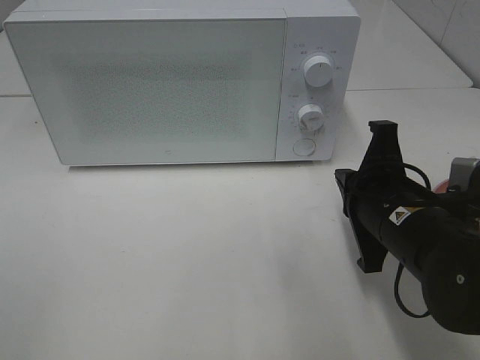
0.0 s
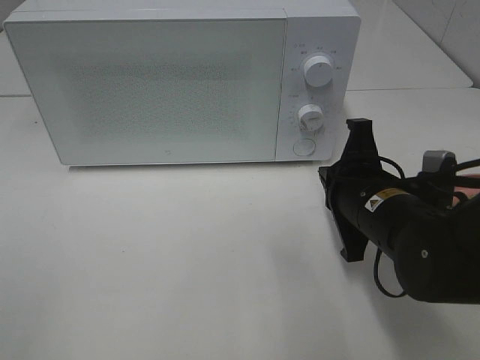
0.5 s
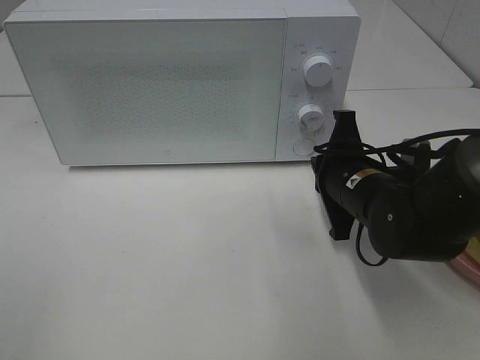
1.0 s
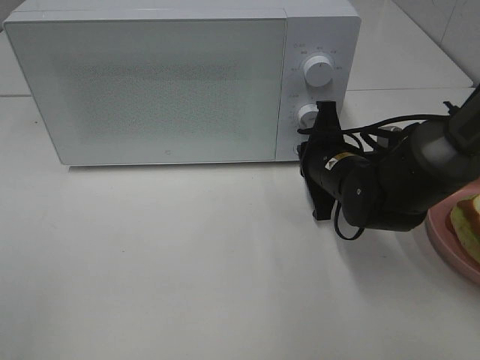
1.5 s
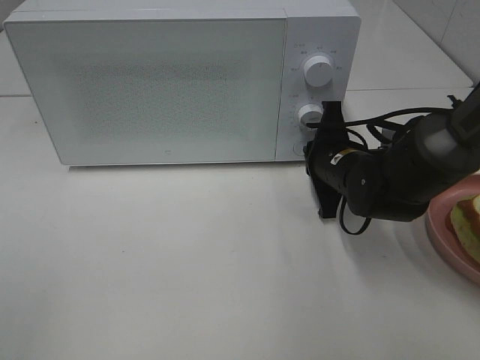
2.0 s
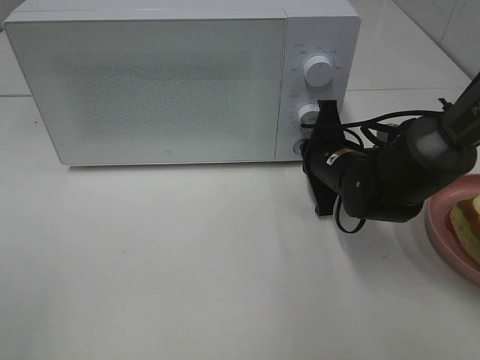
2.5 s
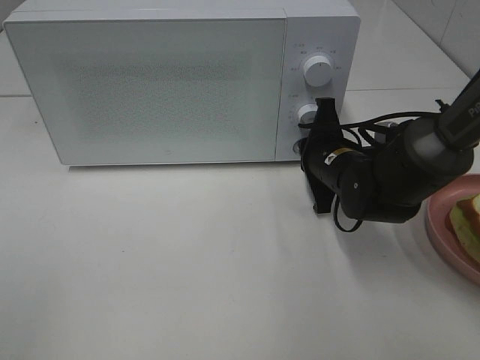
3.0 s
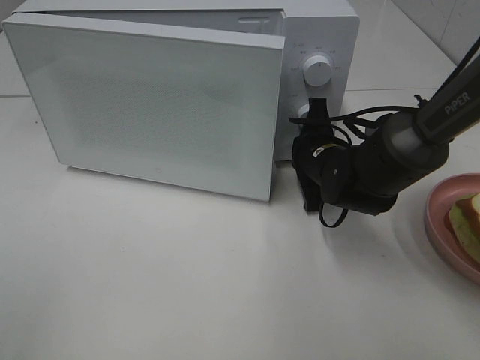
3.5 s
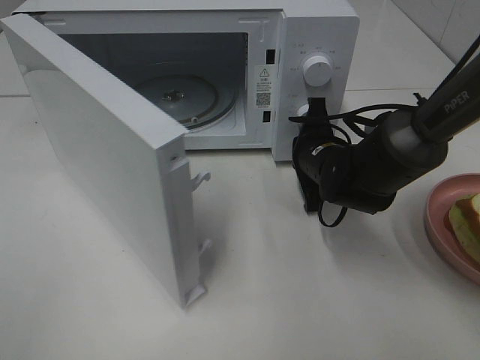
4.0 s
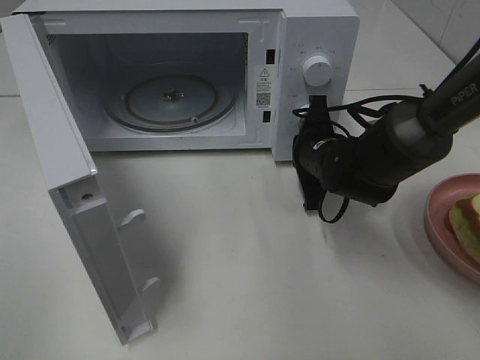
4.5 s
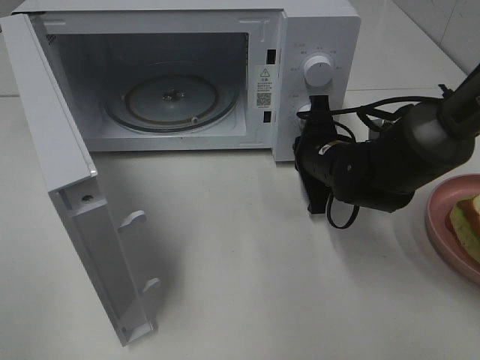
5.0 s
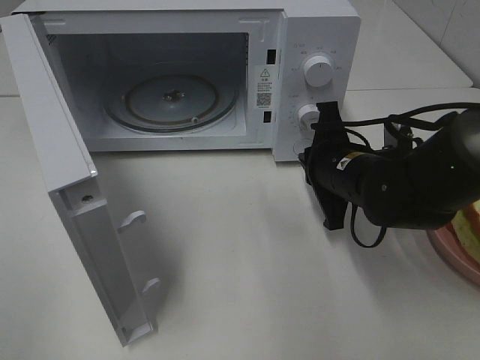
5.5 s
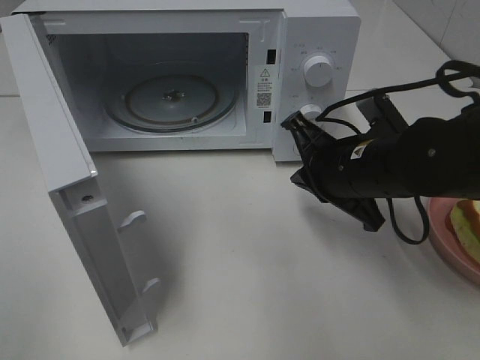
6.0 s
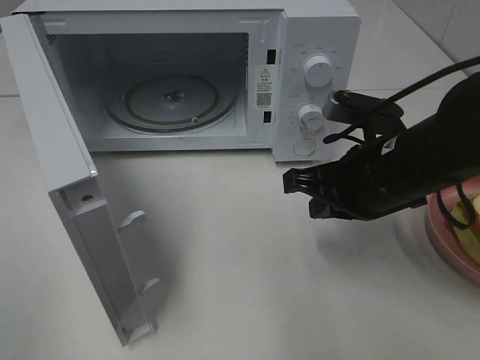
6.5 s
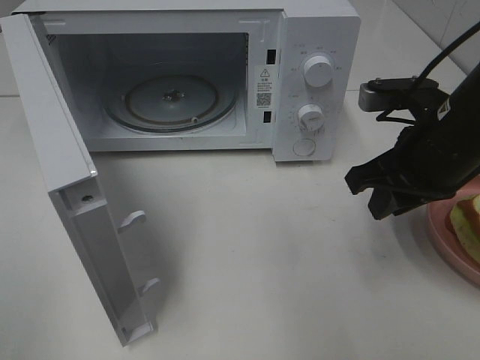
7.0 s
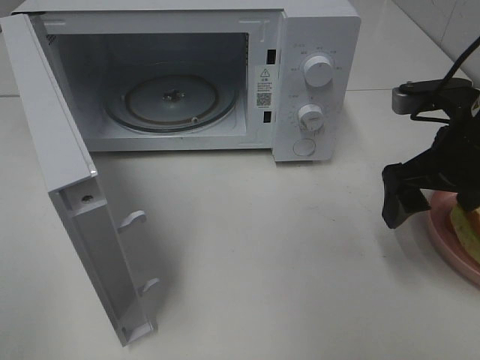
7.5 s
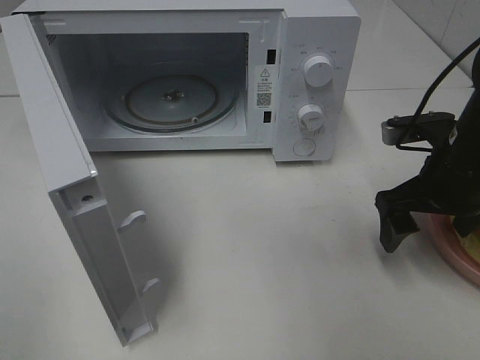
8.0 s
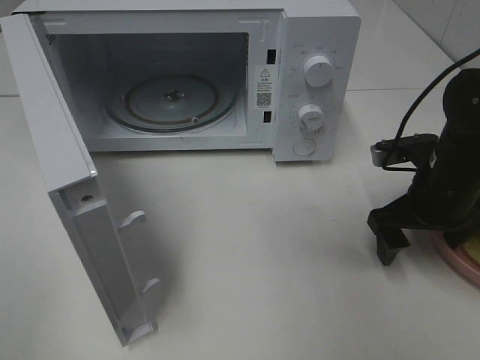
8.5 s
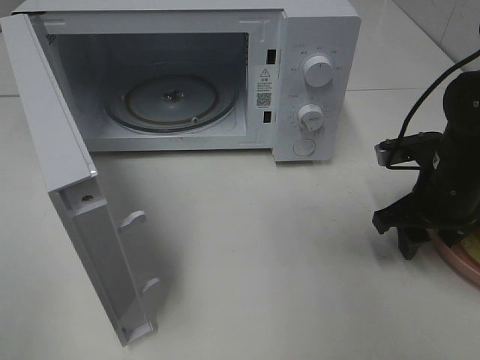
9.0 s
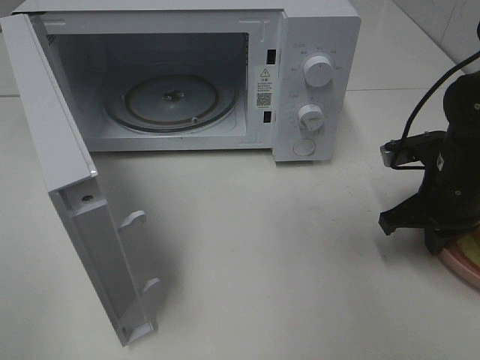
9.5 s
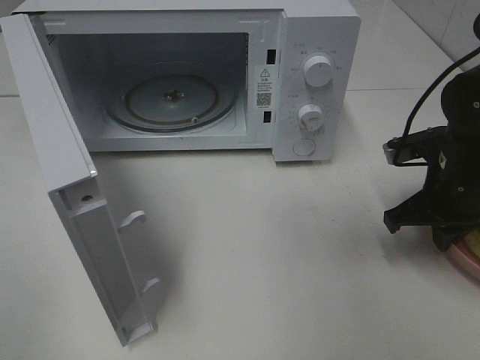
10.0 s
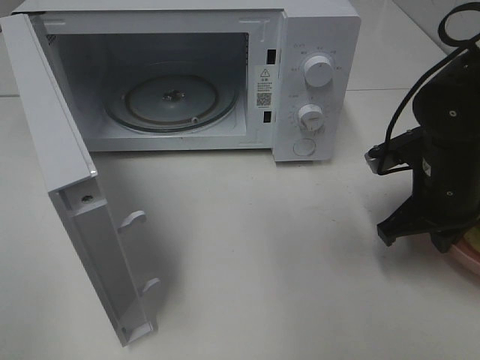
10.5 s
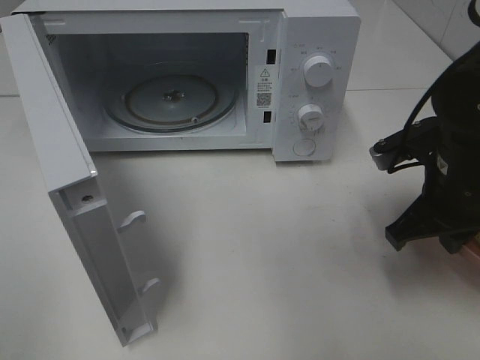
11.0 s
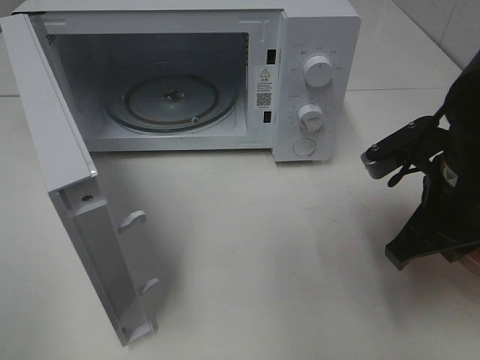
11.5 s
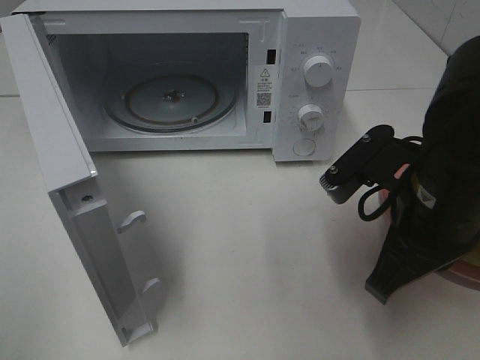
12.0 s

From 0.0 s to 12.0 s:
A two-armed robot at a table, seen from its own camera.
Task of the whole recording: Heat Sandwich.
Step, from 0.0 s to 5.0 s: Right hand: press the switch.
Step, from 5.5 s to 9.5 s: Right hand: grab the plate with the sandwich.
From 0.0 s to 2.0 s: The right gripper goes approximately 15 cm forward.
From 4.0 s to 6.0 s: The right gripper heads backward and upward, covering roughly 10 cm.
From 6.0 s to 8.0 s: The right gripper is displaced to the right by about 10 cm, and opens.
From 8.0 s to 10.0 s: The right gripper closes up.
From 10.0 s to 12.0 s: The right gripper travels backward, to the left and upward by roughly 15 cm.

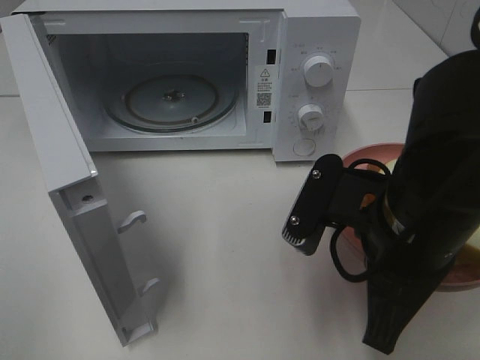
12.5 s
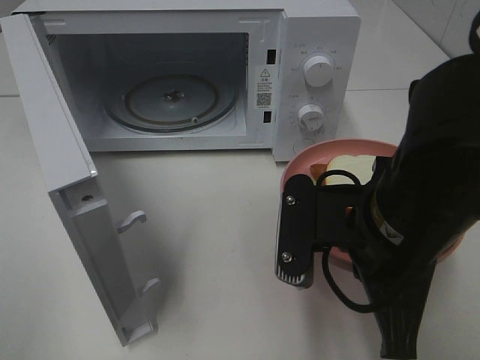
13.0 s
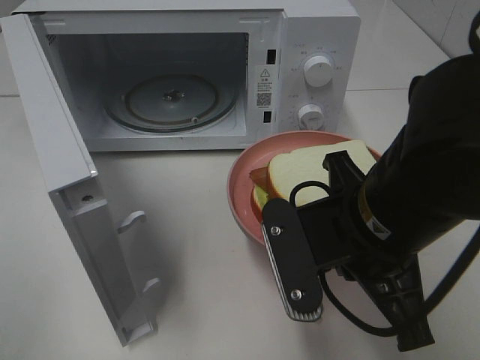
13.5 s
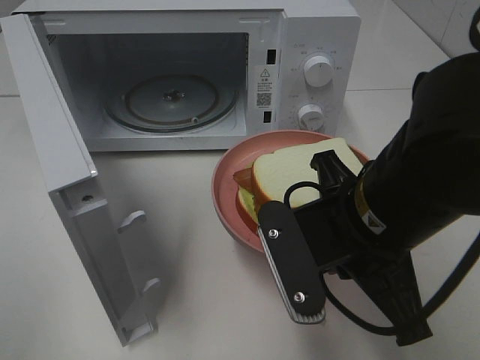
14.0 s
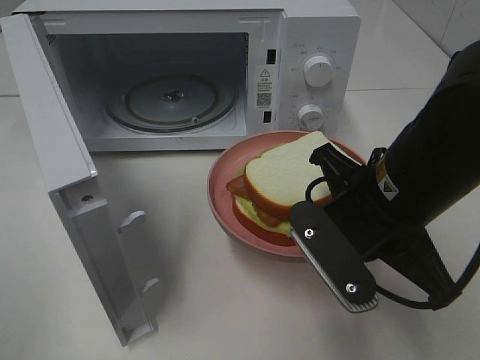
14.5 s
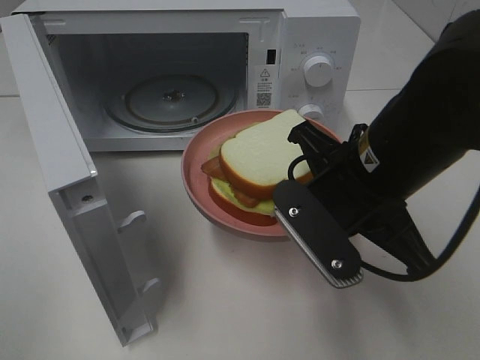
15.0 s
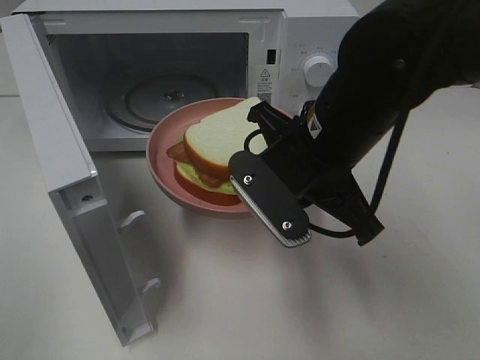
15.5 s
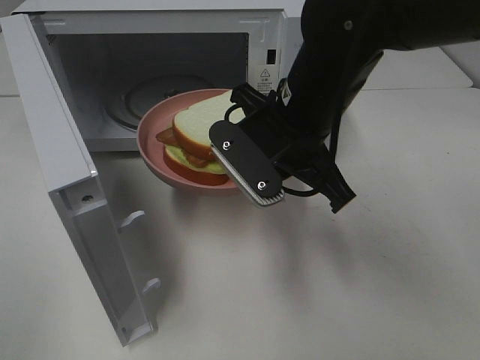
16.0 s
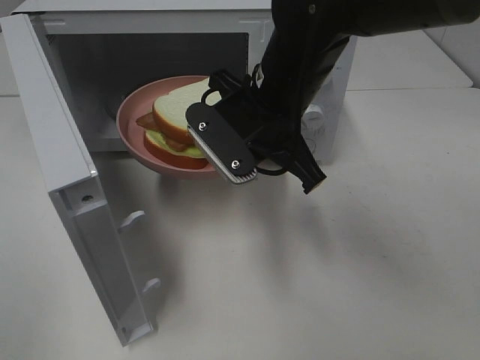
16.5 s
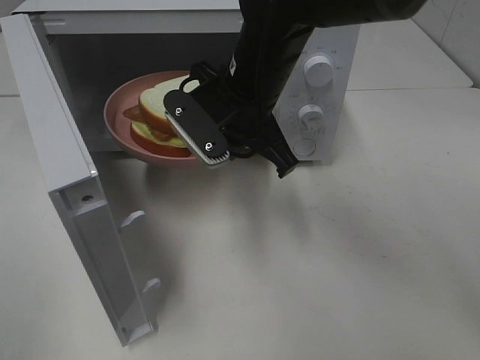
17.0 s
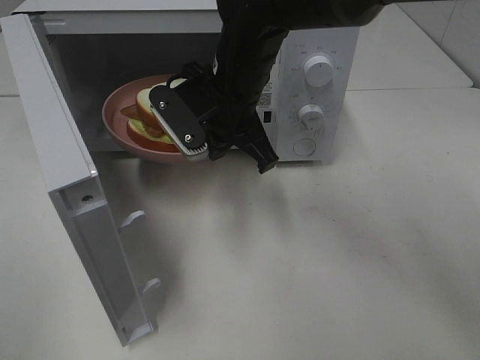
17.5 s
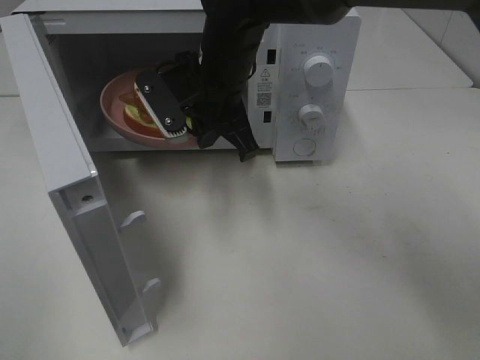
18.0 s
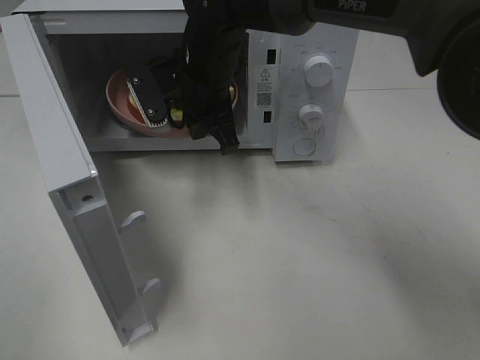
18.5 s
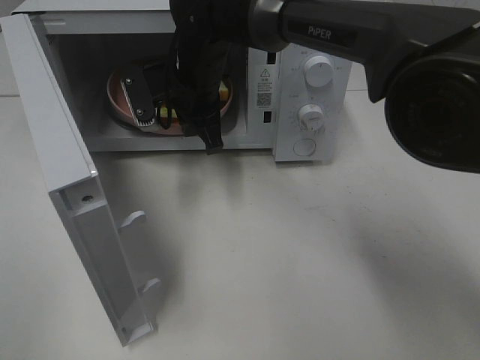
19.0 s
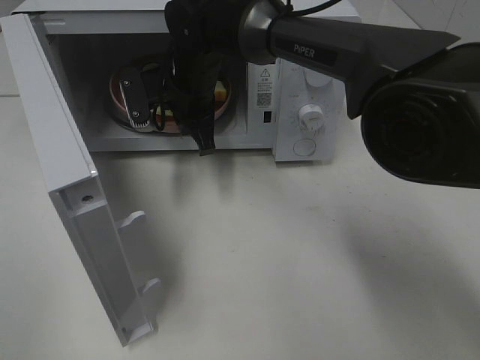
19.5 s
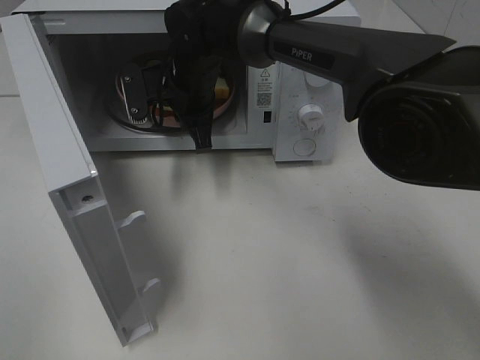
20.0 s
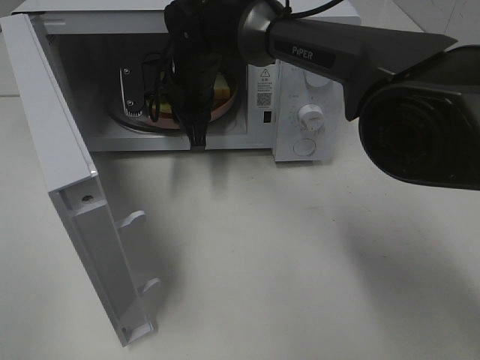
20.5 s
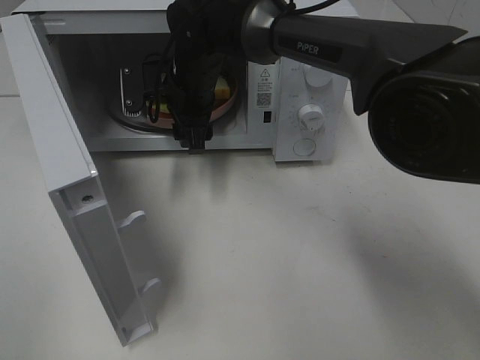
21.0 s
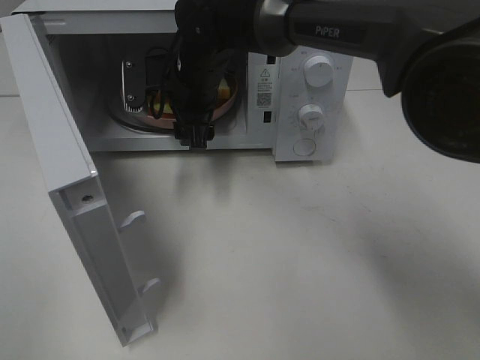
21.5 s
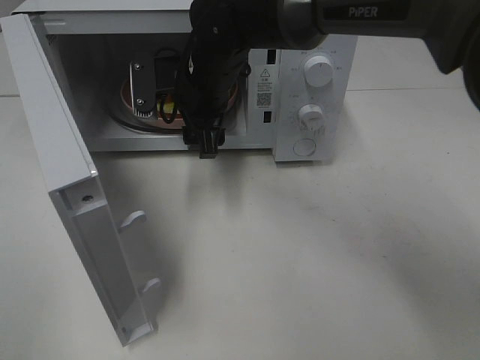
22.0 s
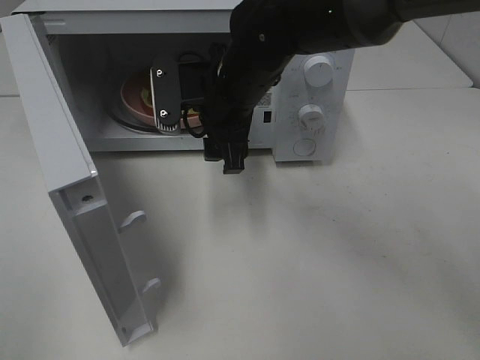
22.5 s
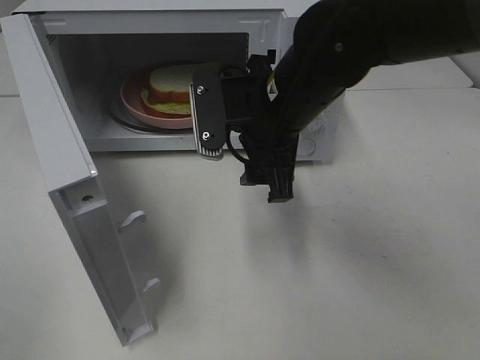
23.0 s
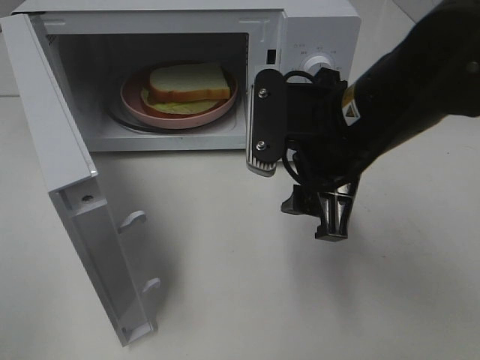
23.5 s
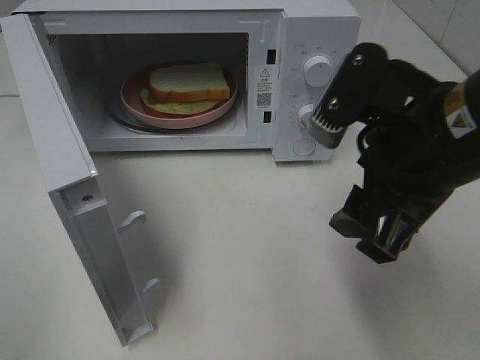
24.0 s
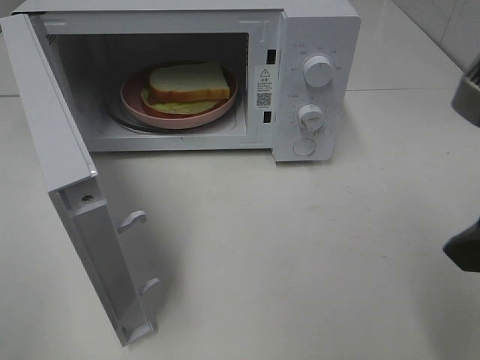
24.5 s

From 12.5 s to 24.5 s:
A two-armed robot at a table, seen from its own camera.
Task of the whole recording: Heat Sandwich.
Step, from 12.5 s to 21.5 s: Right hand: place the plate in the microwave.
From 14.5 s to 16.5 s: The right gripper heads forward and to the left, covering approximately 15 cm.
From 16.5 s to 18.5 s: The right gripper travels forward and to the left by approximately 10 cm.
From 18.5 s to 20.5 s: The right gripper ends up approximately 5 cm from where it was.
From 20.5 s to 22.5 s: The right gripper is displaced backward and to the right by some 10 cm, and opens up.
From 22.5 s to 24.5 s: The right gripper goes approximately 30 cm backward, to the right and upward.

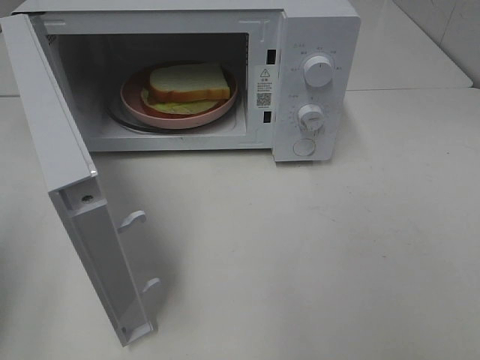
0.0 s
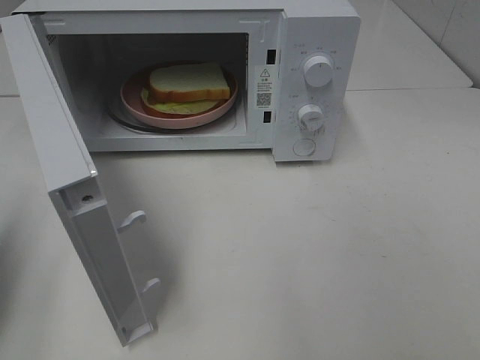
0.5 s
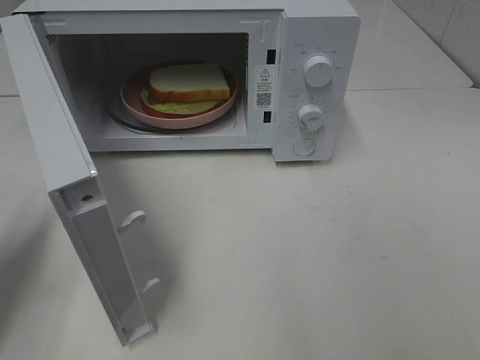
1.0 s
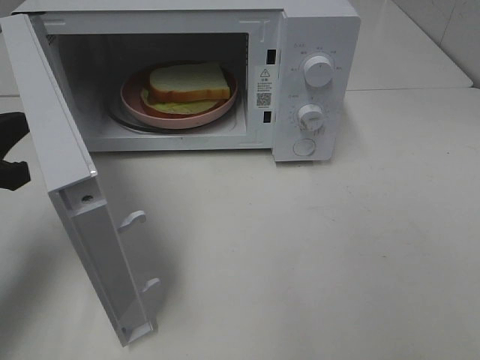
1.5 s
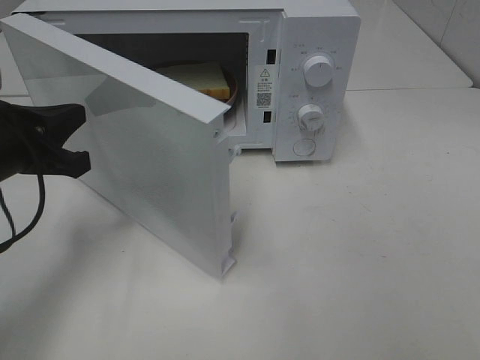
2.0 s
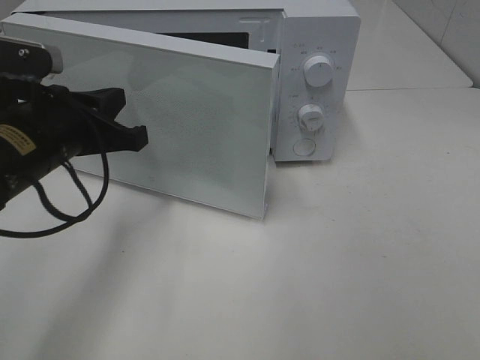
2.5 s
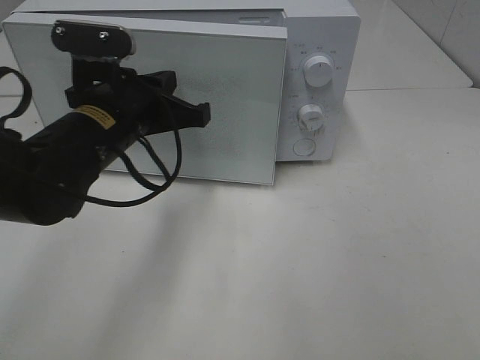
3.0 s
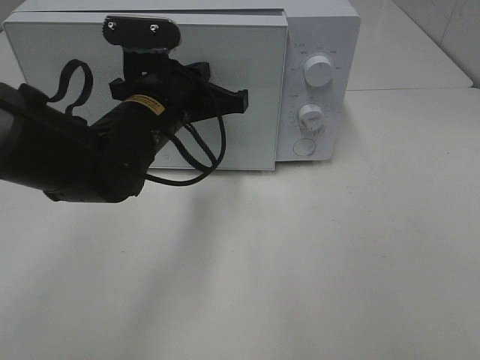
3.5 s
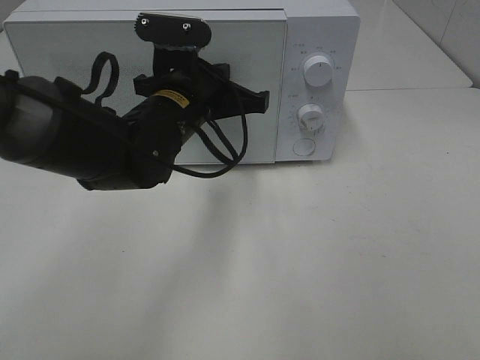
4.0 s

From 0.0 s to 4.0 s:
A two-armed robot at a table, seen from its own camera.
Task of the whole recording: Heat Sandwich.
From 0.0 s to 2.0 s: The left gripper travels forward, to the right and downward by roughly 15 cm.
From 2.0 s to 4.0 s: The left gripper moves to the right and forward, about 20 cm.
